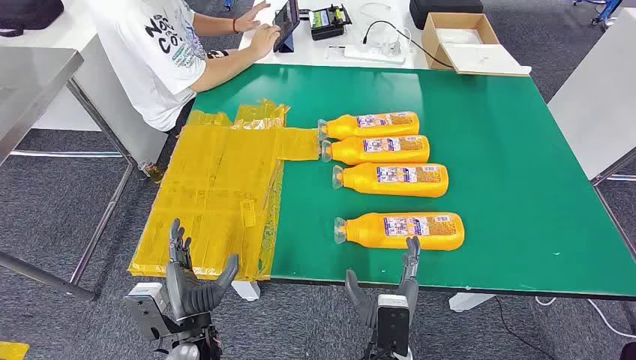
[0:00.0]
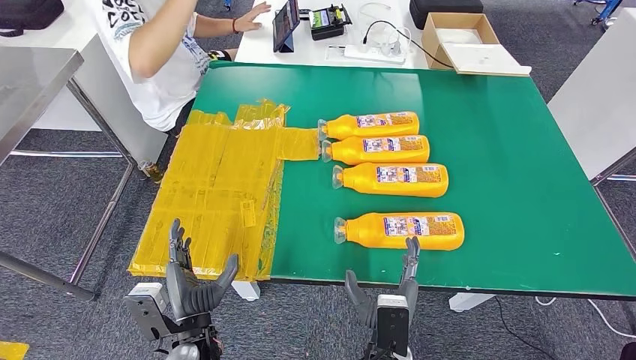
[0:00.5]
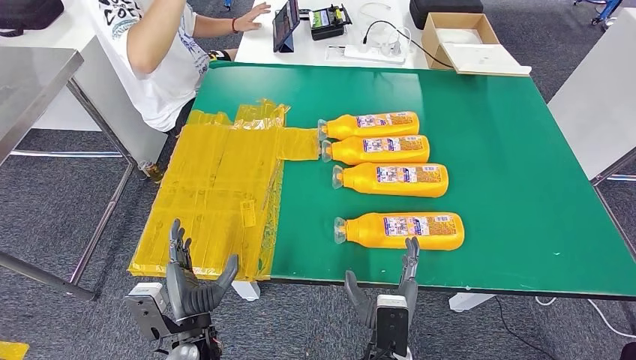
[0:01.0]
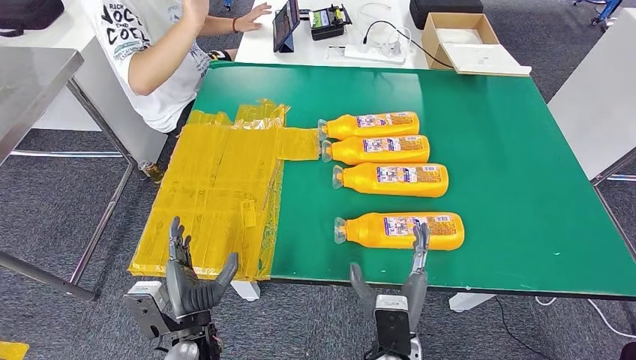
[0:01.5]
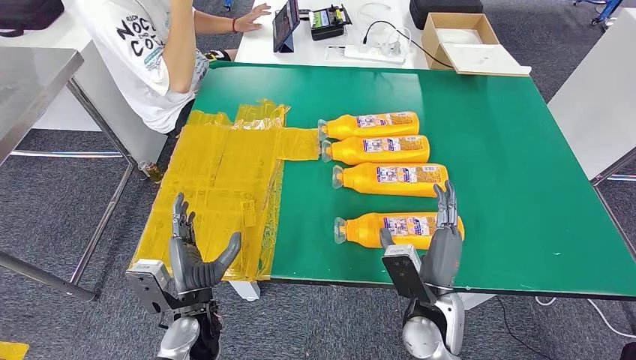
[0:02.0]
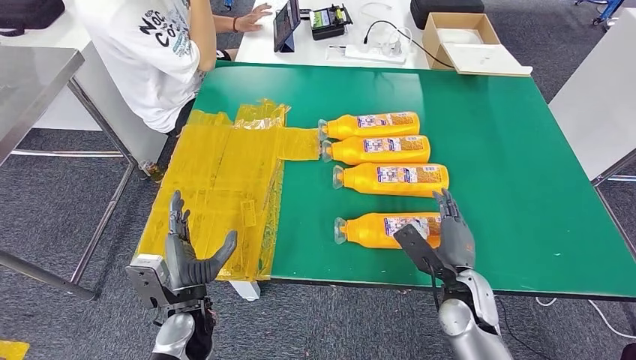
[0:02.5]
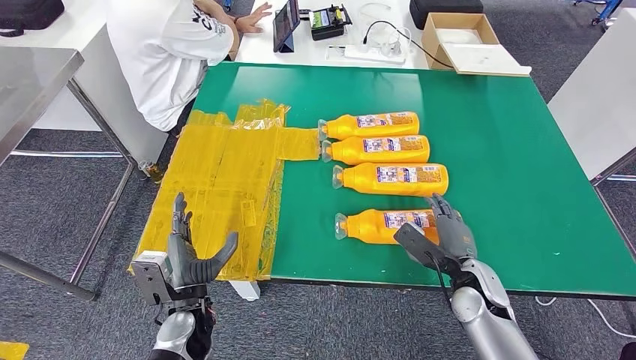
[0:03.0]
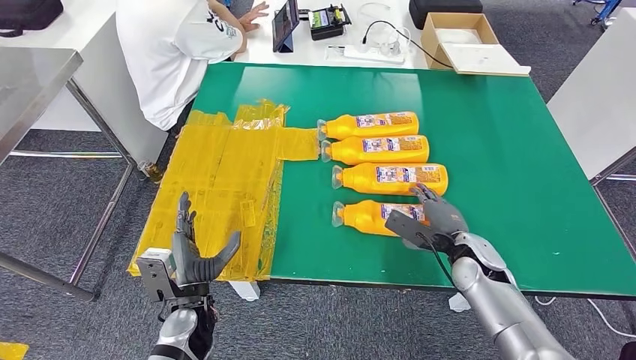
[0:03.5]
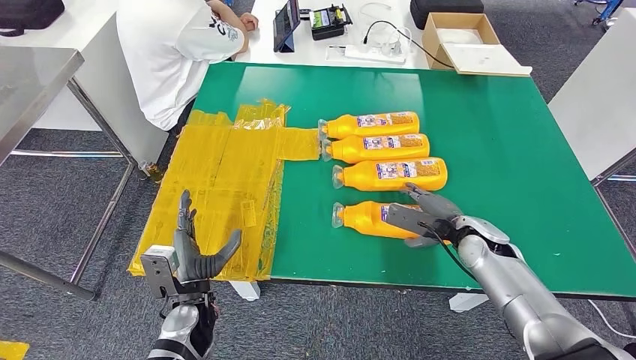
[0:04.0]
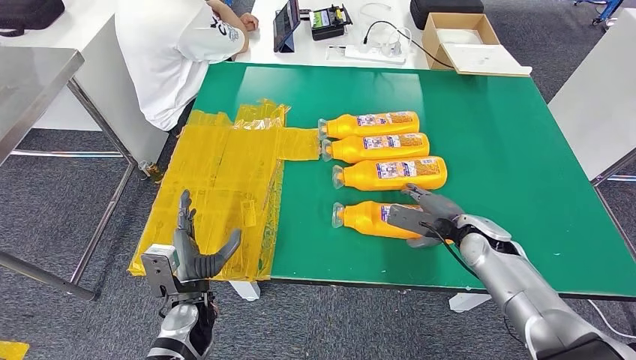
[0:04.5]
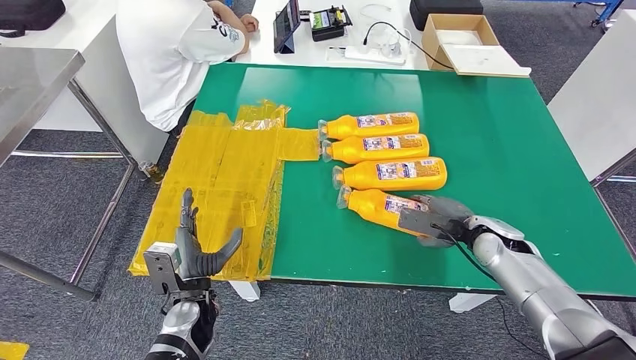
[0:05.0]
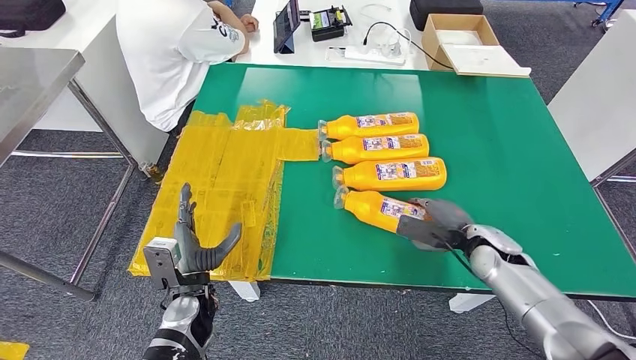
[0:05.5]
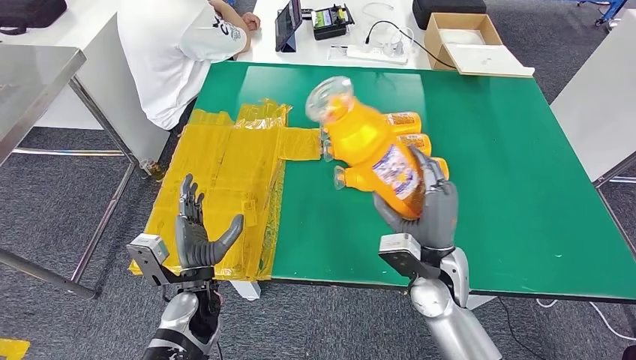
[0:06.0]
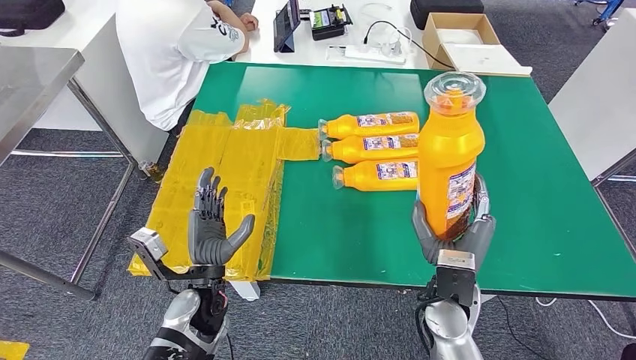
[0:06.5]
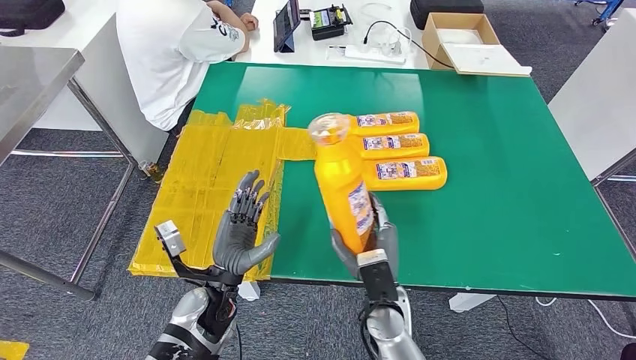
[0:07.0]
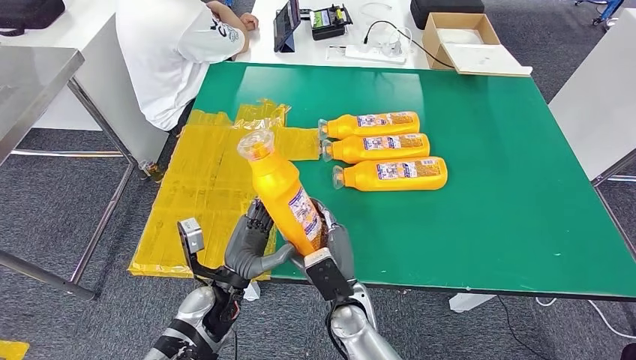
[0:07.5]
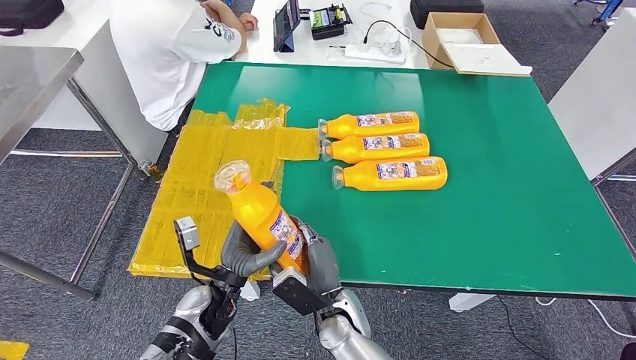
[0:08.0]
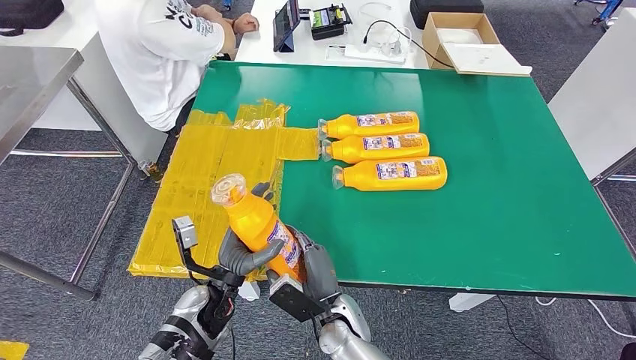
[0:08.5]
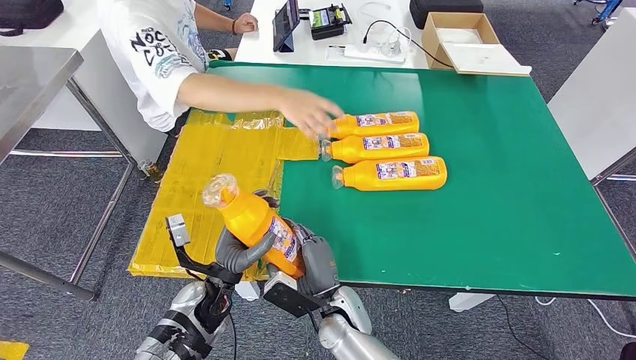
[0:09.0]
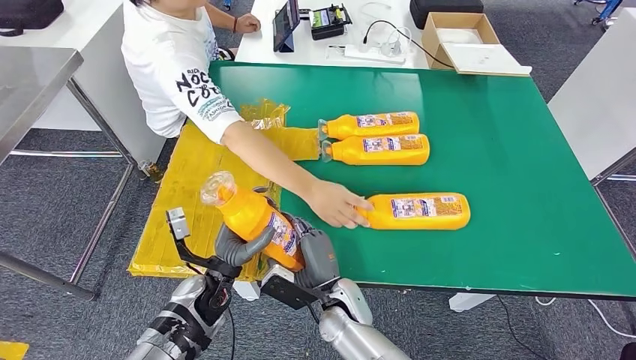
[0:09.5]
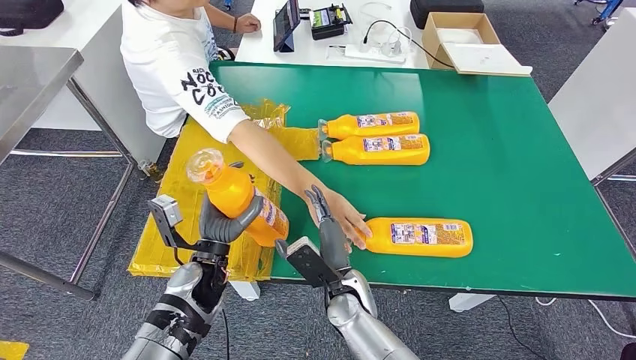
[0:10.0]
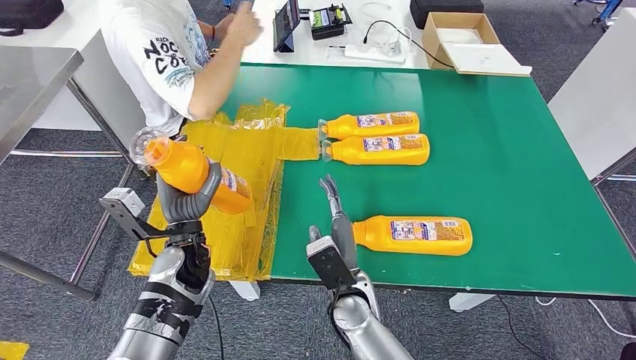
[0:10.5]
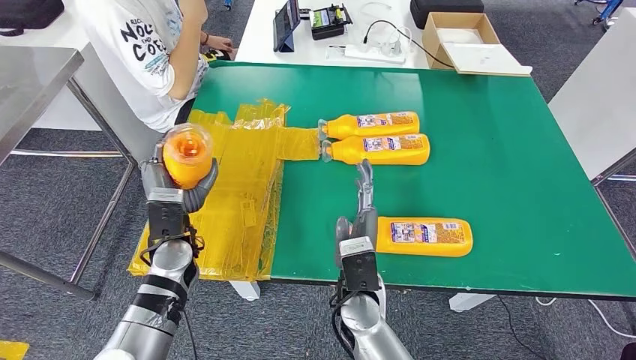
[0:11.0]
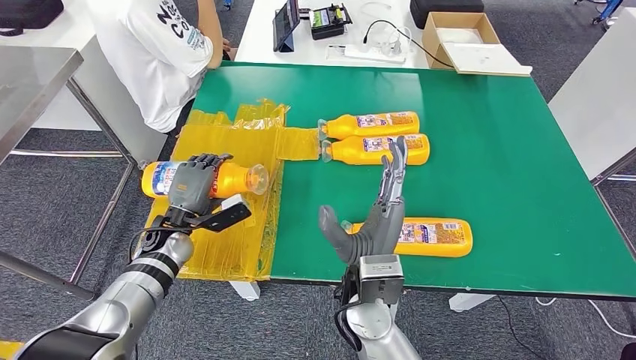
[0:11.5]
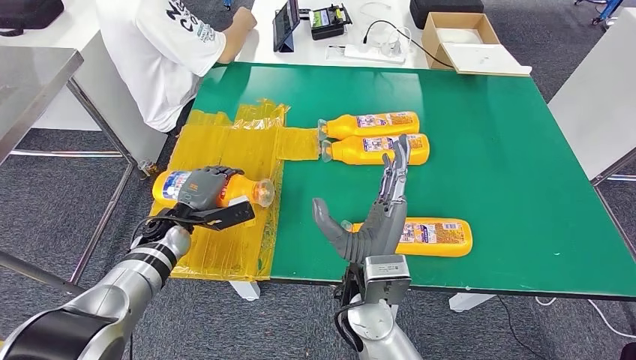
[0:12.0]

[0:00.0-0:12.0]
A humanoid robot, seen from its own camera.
Step, 0:00.0 to 0:07.5: Take the fast-moving consumer goods bottle from the table.
0:02.0 to 0:04.0: The right hand moves forward and to the right, roughly 20 cm.
0:04.0 to 0:06.0: The right hand is displaced to the left and backward by about 15 cm.

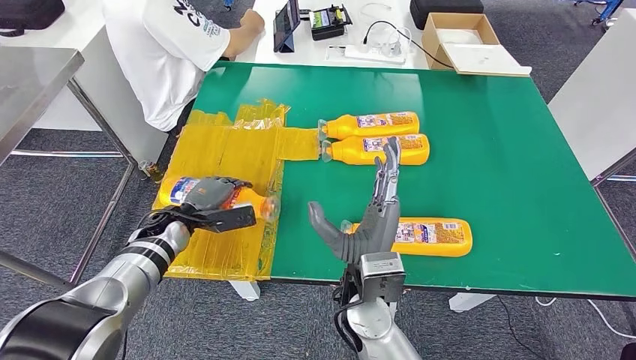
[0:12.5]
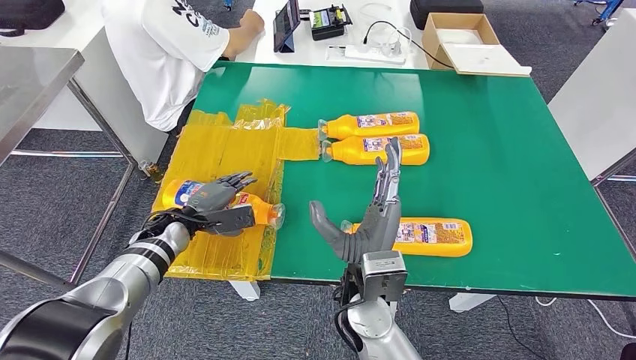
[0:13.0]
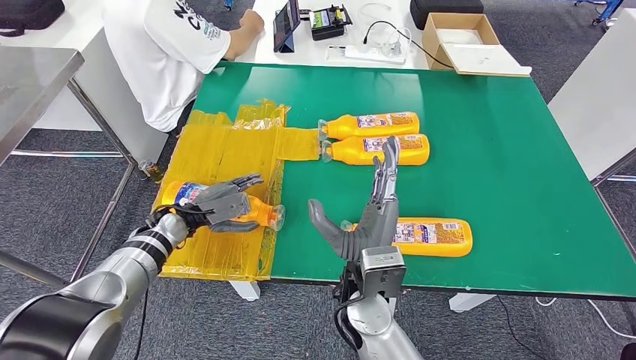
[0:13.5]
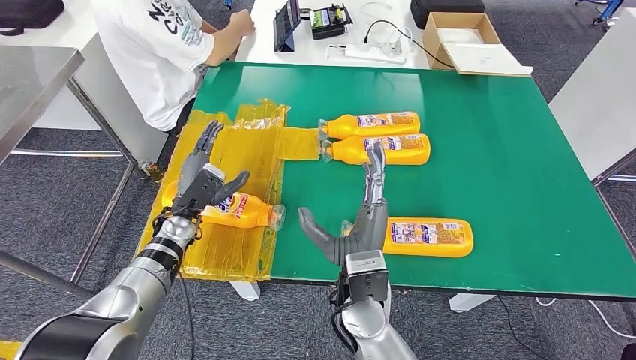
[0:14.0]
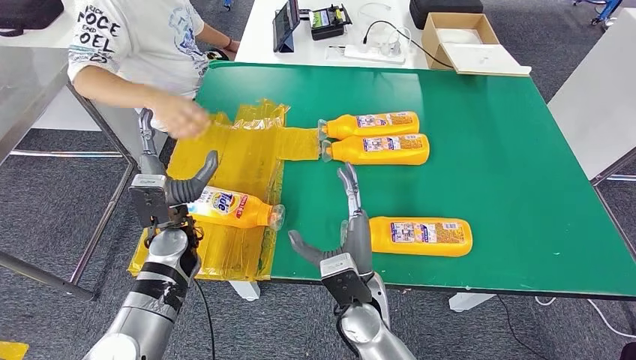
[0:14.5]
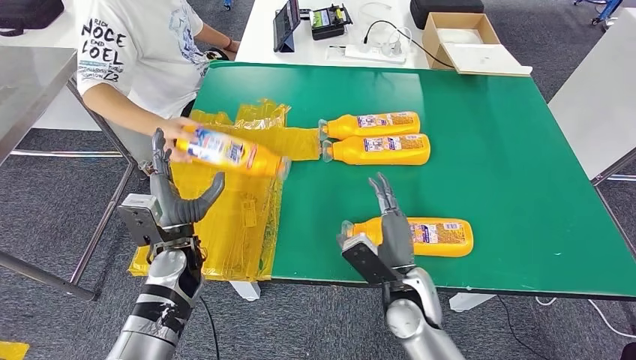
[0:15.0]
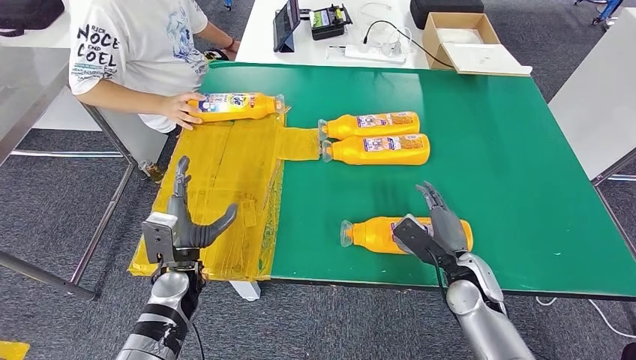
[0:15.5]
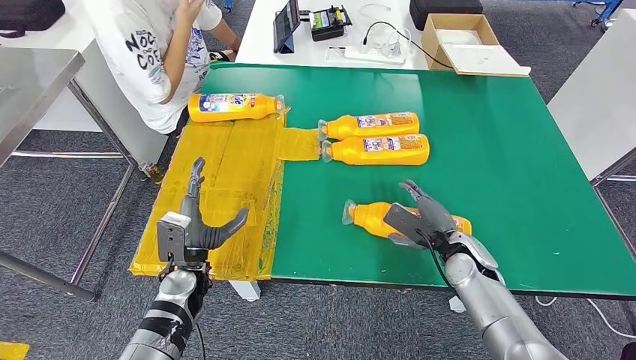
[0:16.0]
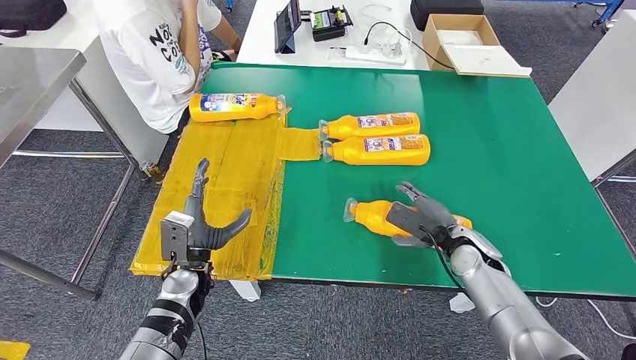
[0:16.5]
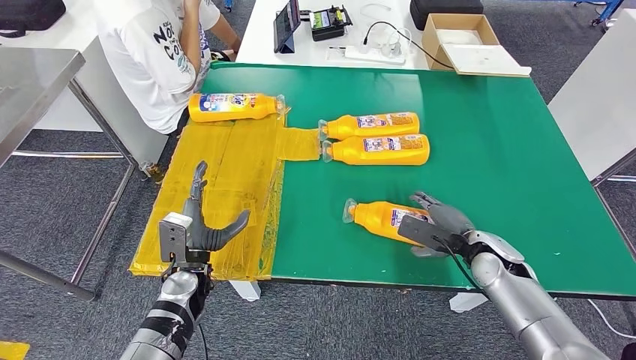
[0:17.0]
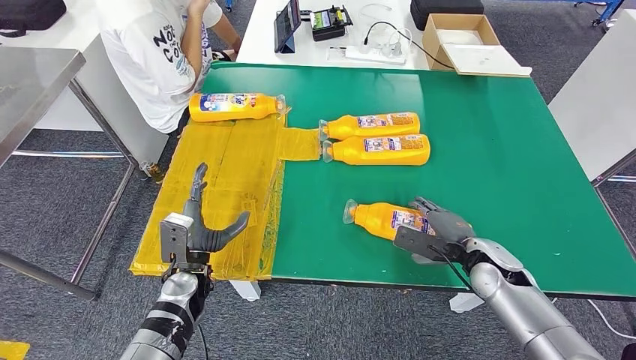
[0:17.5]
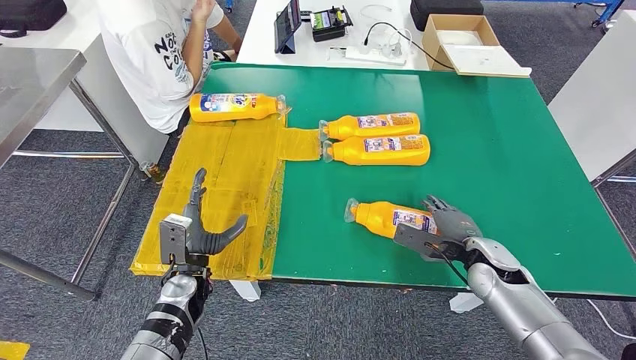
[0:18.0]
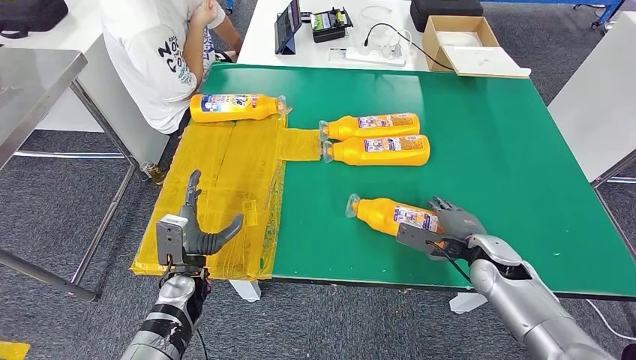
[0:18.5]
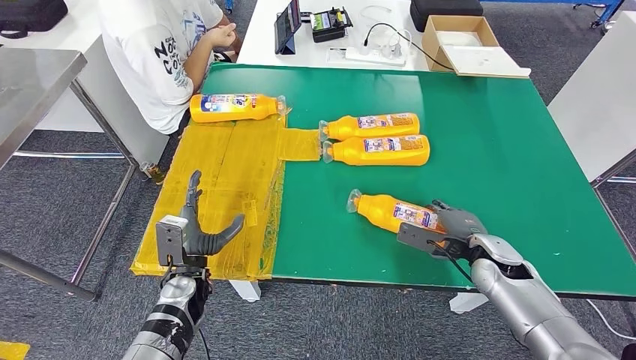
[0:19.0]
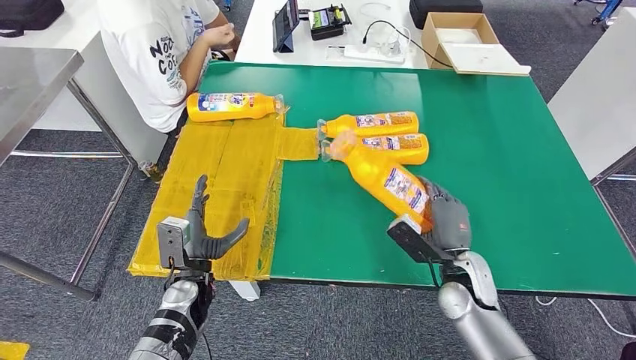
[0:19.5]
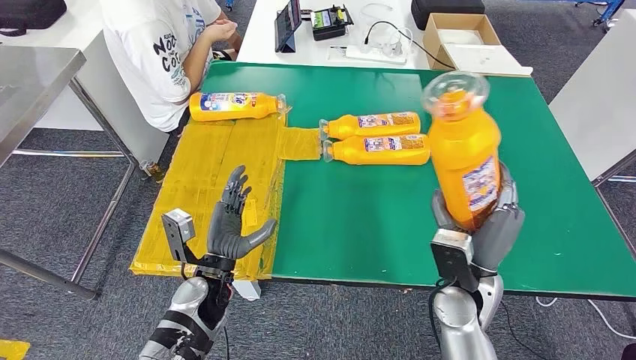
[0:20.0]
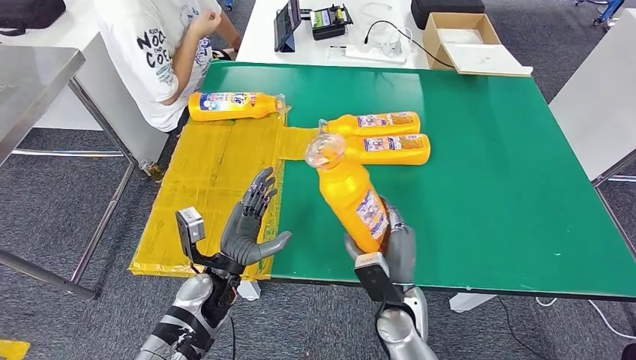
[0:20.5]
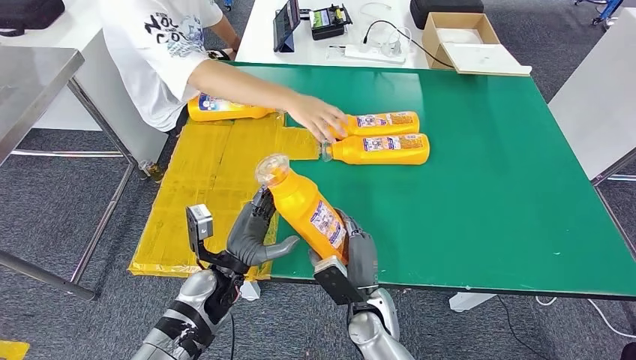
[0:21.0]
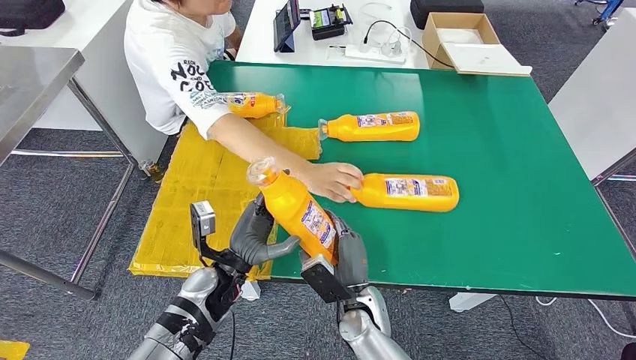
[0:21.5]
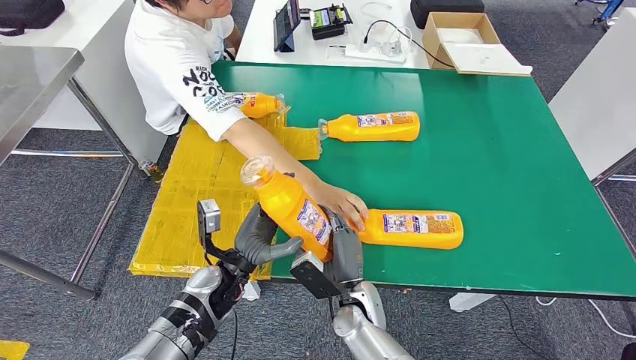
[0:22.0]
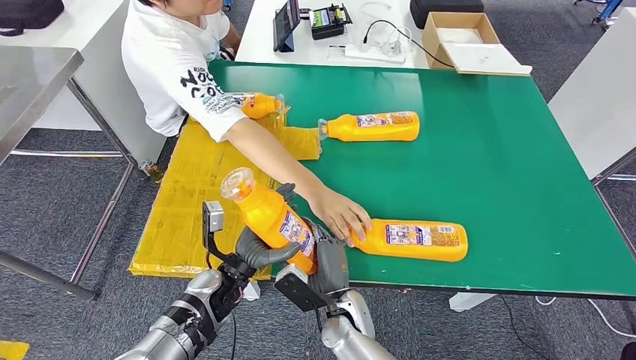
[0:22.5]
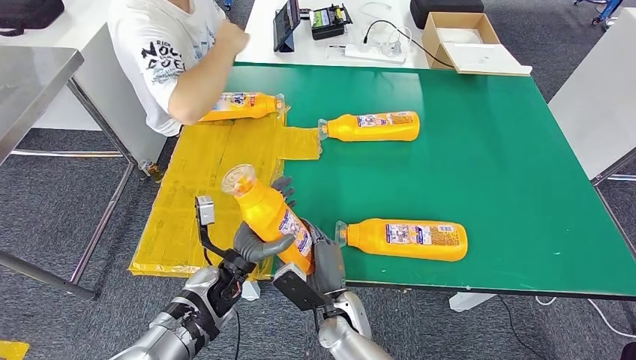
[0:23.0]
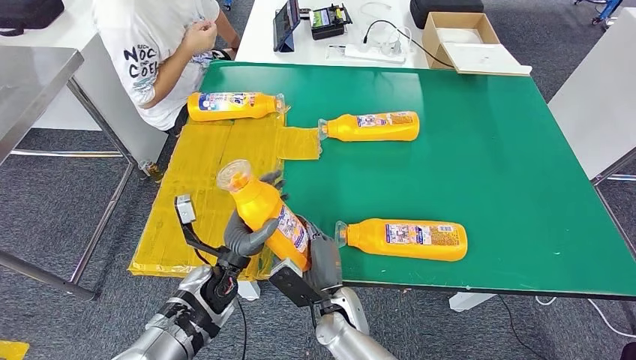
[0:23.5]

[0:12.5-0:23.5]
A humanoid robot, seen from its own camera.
Step, 0:14.0 to 0:20.0: Pick up the fast-moving consumer goods bottle from the table.
